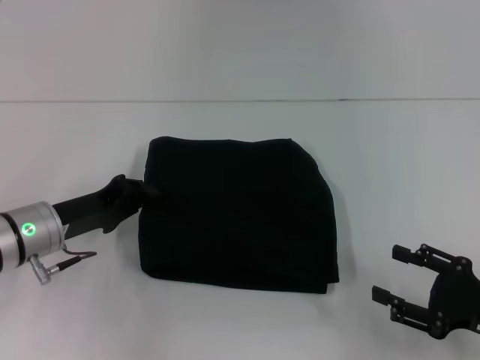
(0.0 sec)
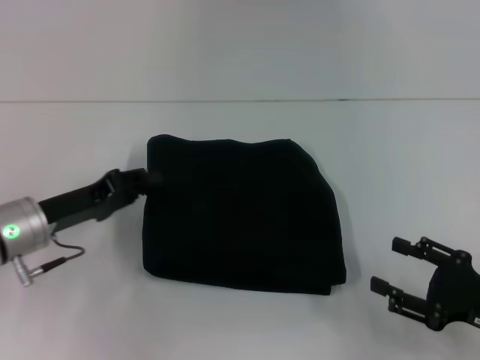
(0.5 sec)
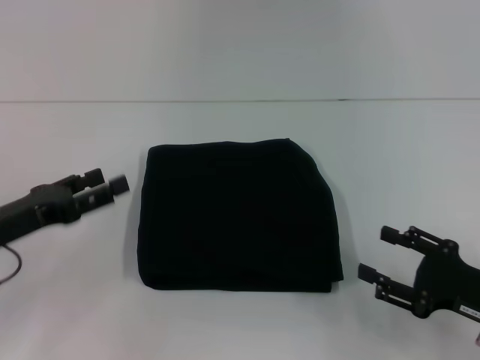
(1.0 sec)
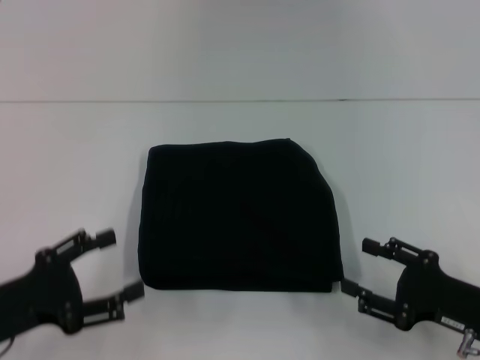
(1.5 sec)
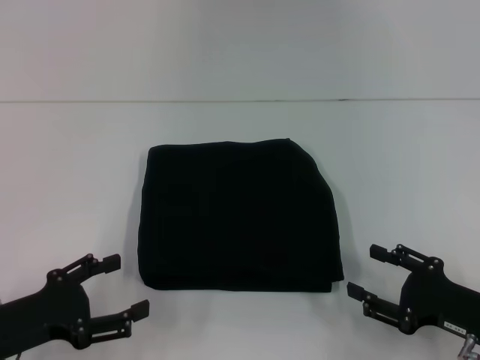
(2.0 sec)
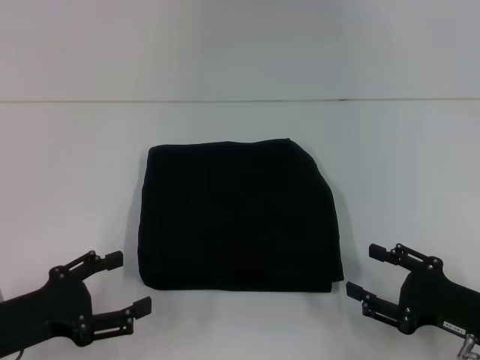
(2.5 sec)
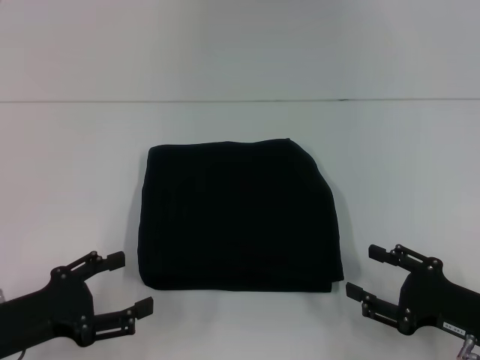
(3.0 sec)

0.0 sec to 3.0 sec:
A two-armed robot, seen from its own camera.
0.0 sec to 1.5 sec: The left gripper heads backward, covering roughly 10 cm, and opens up.
1.5 sec to 3.0 sec: The grippers make only small movements.

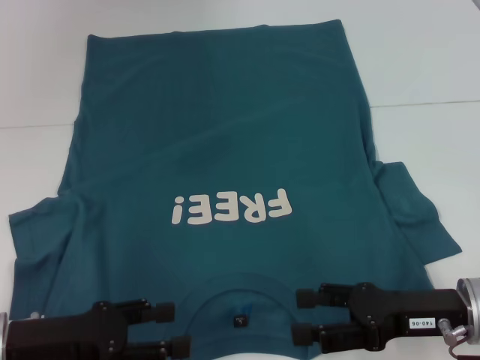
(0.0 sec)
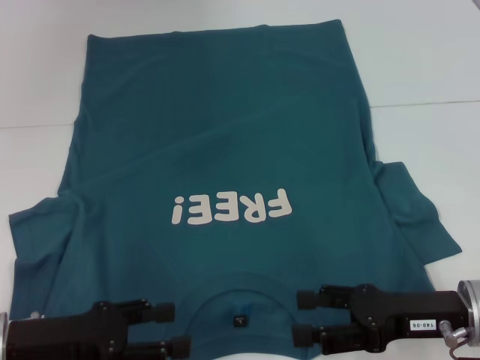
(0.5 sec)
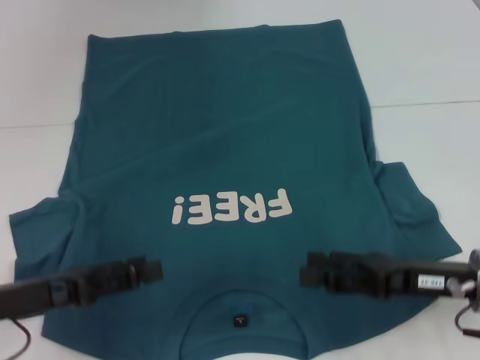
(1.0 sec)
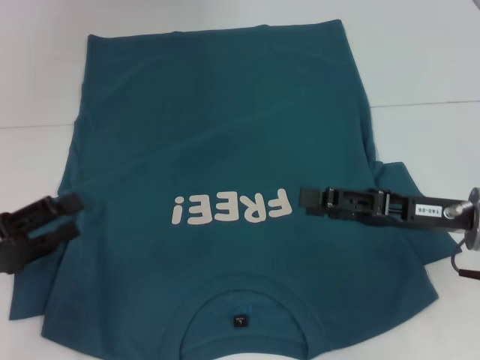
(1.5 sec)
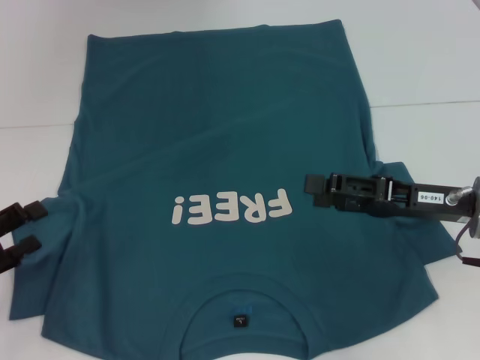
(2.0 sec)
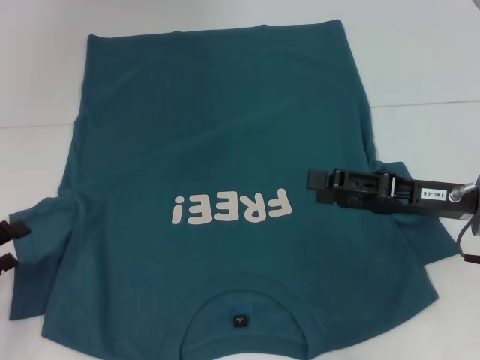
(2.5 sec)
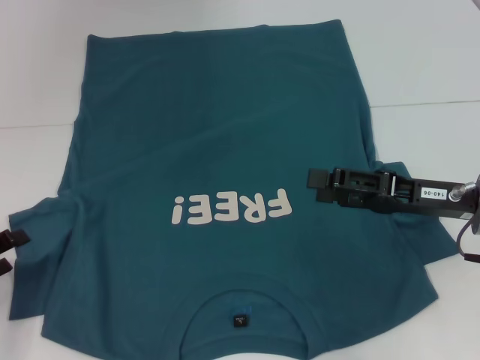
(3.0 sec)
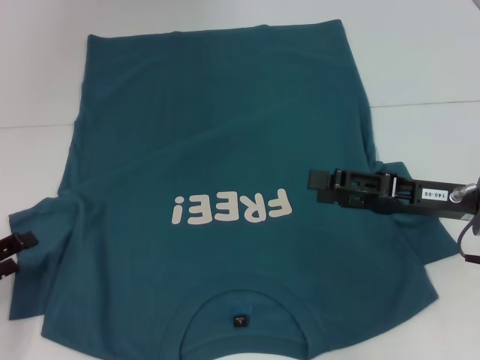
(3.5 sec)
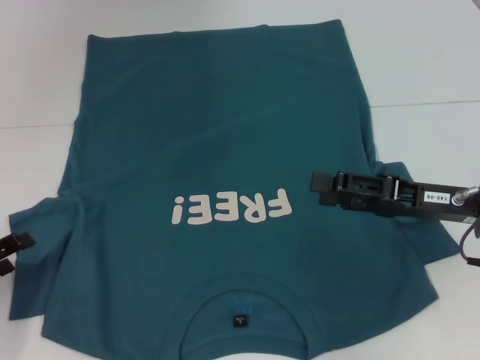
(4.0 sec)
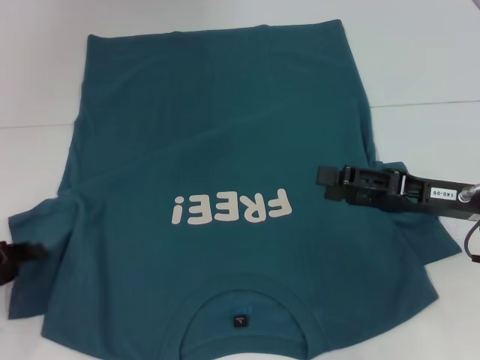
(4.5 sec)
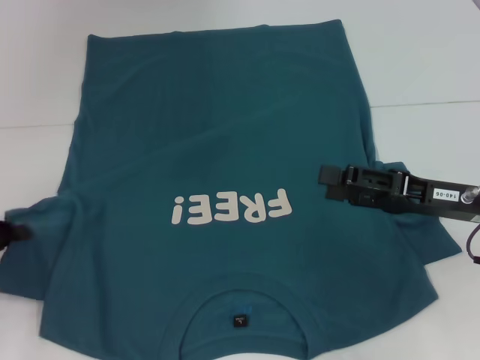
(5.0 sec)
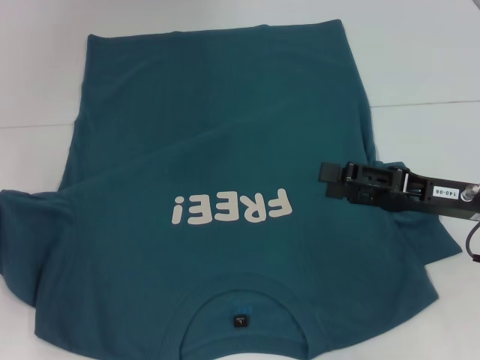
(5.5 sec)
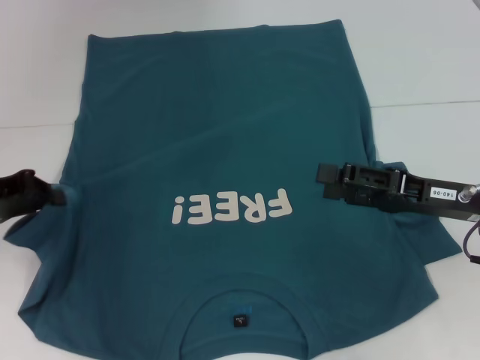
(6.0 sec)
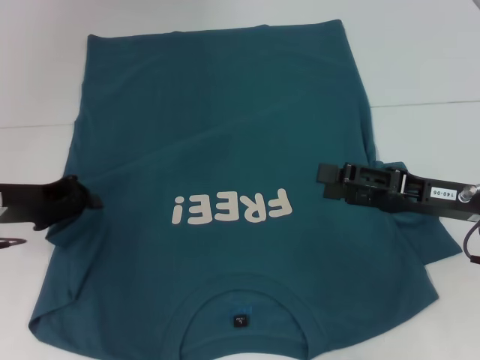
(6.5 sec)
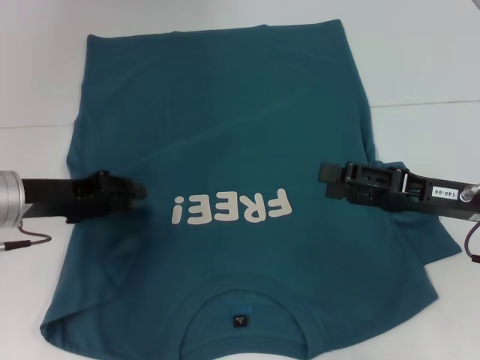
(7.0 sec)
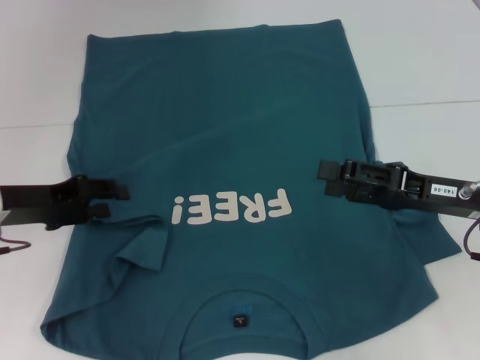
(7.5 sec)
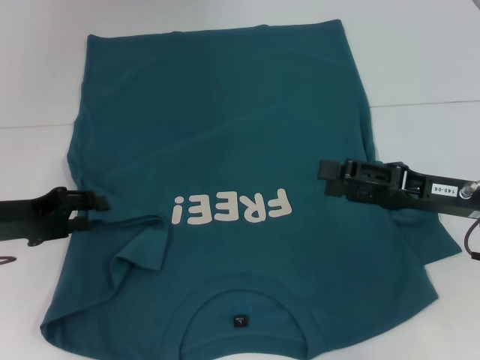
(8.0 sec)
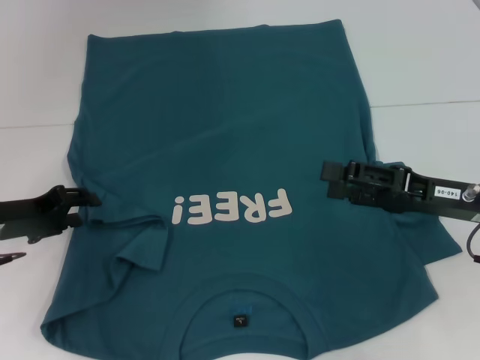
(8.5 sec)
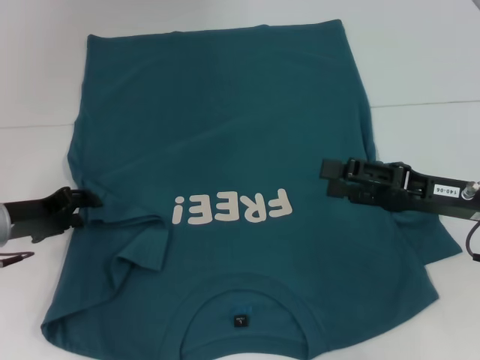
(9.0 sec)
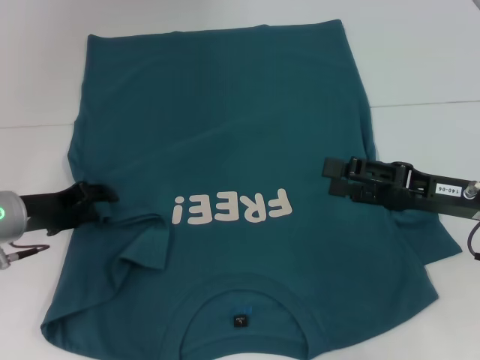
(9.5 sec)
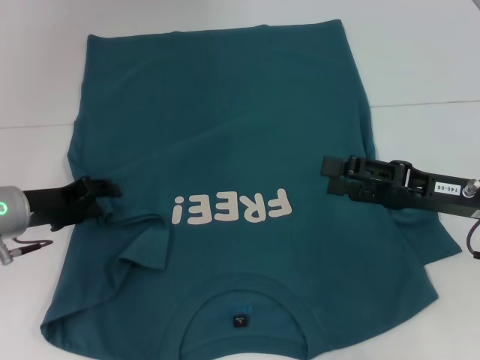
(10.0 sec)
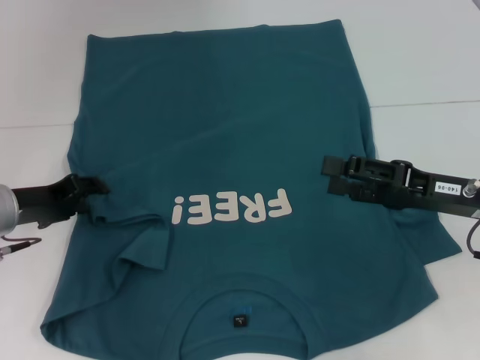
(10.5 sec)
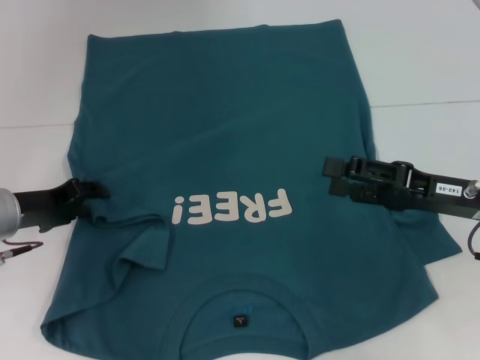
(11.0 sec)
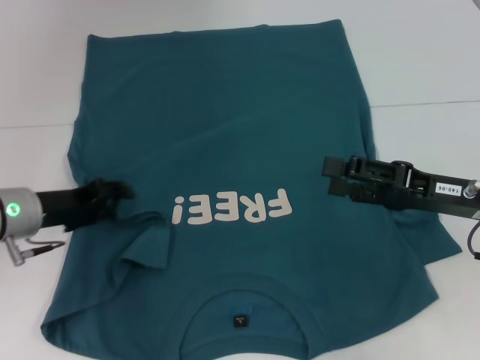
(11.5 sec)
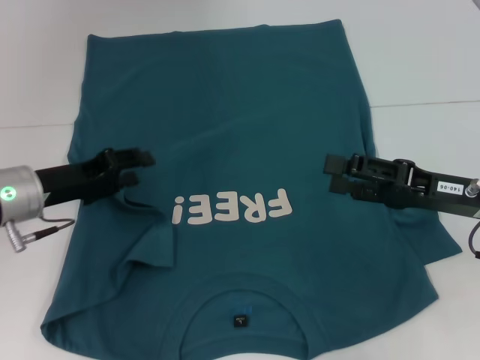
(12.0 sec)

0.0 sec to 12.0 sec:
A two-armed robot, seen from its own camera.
0.0 sec to 2.0 sec: The left gripper moves to the left, some 10 cm. The right gripper shifts approximately 5 cm forward.
2.0 sec to 4.0 sec: The grippers make only small movements.
4.0 sec to 6.0 sec: The left gripper is displaced upward and forward by roughly 15 cm, and closes.
6.0 sec to 8.0 sec: The left gripper changes place by some 5 cm, and opens.
8.0 sec to 10.0 sec: The grippers move only a little.
10.0 sec to 12.0 sec: The grippers move only a little.

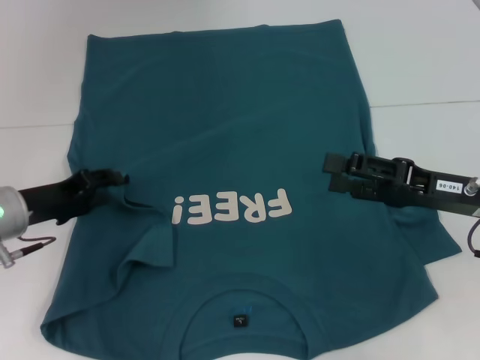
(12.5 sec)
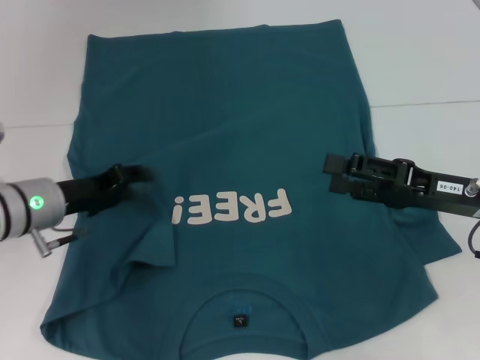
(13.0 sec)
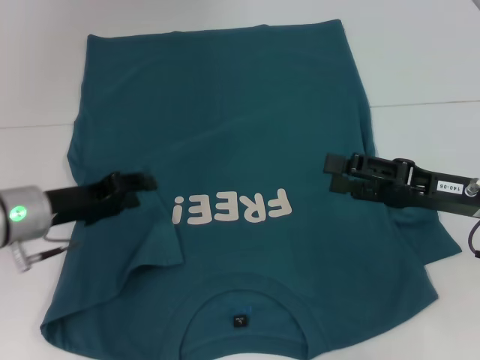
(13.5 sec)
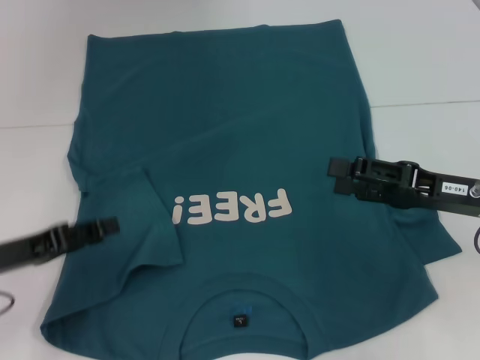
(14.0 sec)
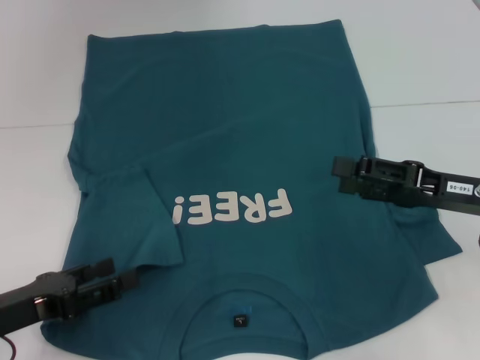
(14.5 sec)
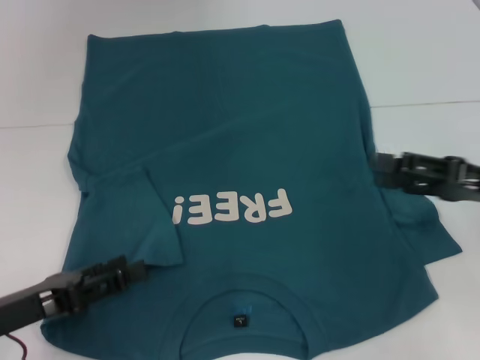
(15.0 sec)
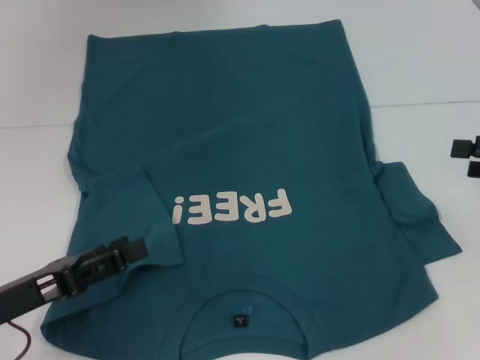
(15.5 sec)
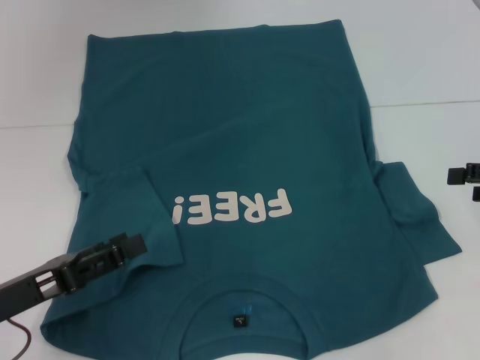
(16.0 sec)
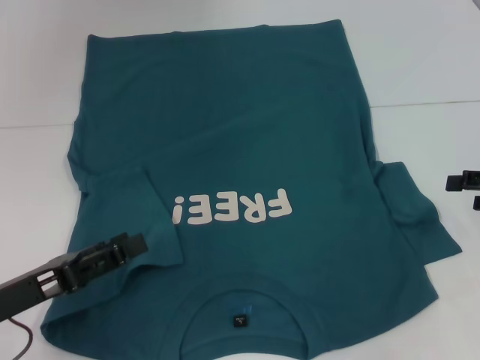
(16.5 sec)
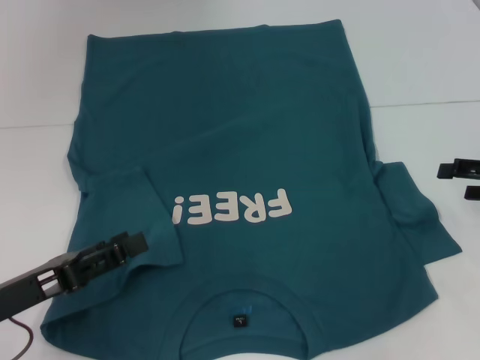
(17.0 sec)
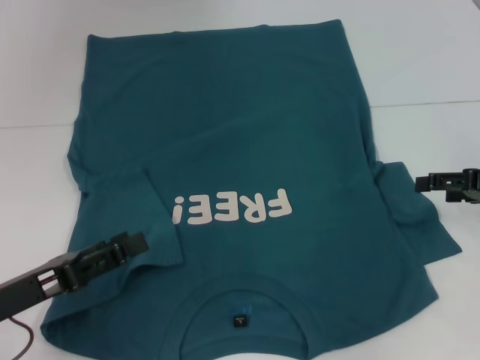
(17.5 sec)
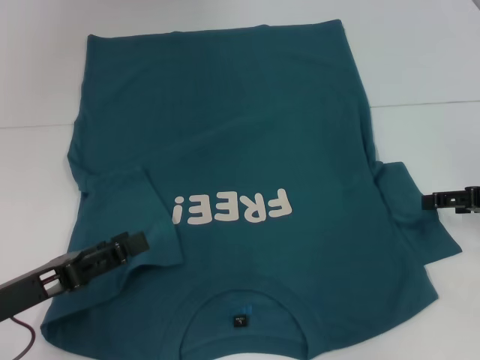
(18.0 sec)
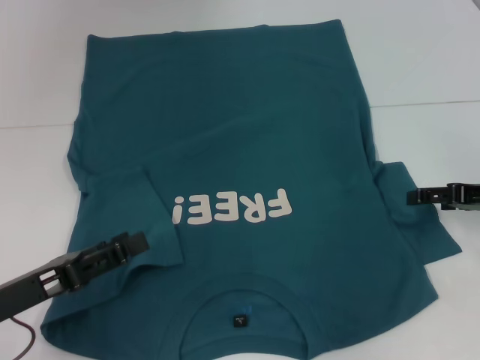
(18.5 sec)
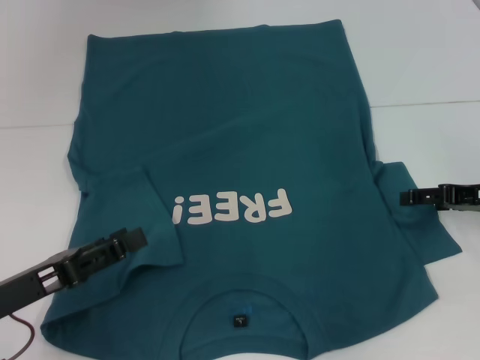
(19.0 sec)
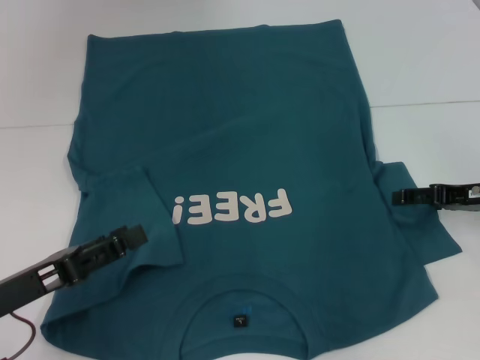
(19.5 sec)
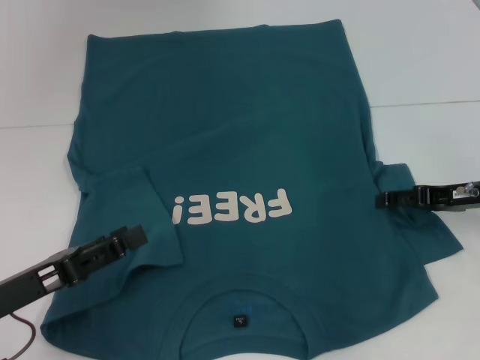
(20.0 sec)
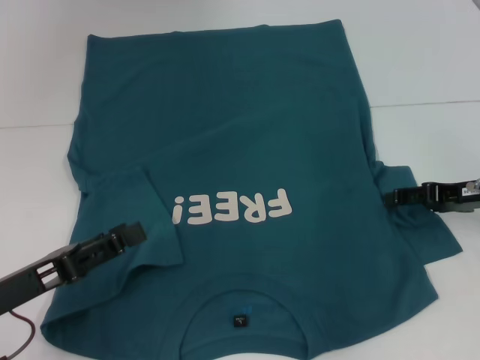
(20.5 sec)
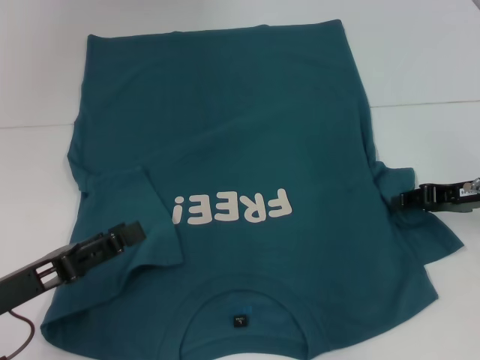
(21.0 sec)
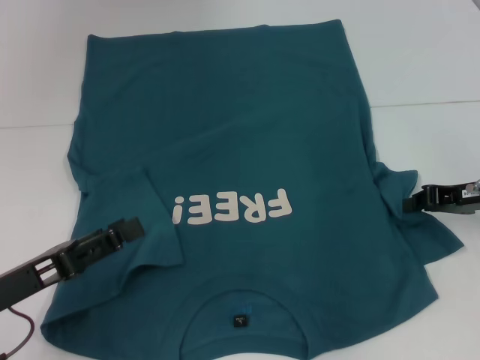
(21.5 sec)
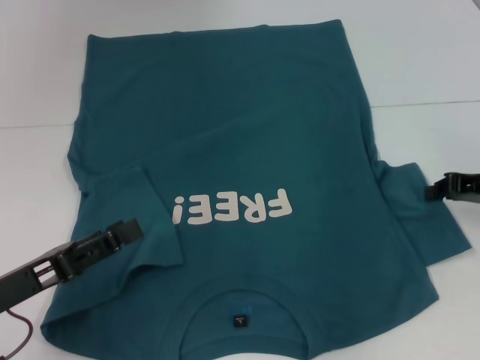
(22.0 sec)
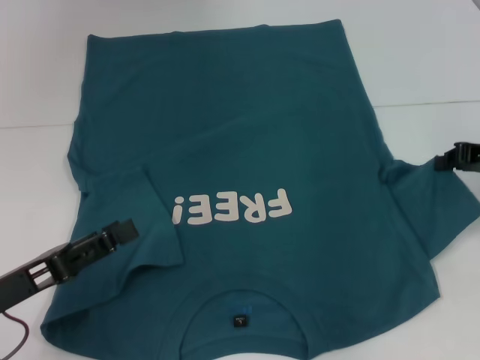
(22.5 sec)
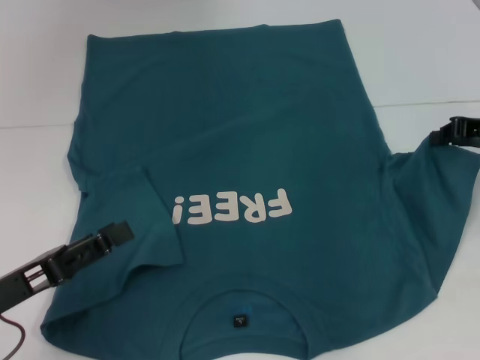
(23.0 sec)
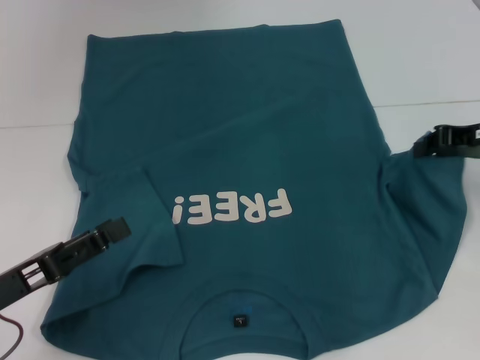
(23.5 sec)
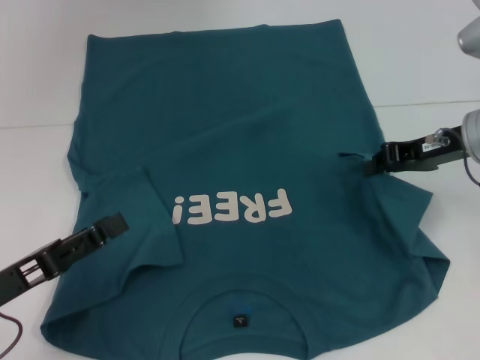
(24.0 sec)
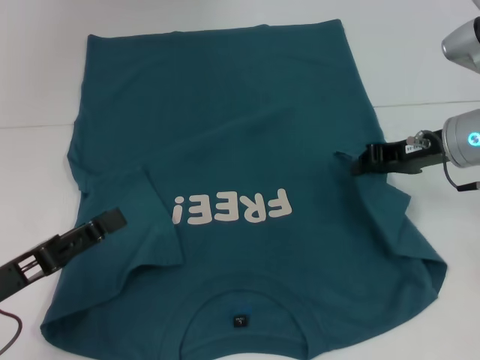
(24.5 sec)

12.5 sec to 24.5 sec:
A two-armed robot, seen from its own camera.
12.5 sec to 14.5 sec: The left gripper moves backward, roughly 15 cm.
14.5 sec to 16.5 sec: The right gripper shifts some 10 cm to the right.
16.5 sec to 18.5 sec: The right gripper moves about 5 cm.
18.5 sec to 20.5 sec: There are only small adjustments of the grippers.
20.5 sec to 22.5 sec: The right gripper closes.
22.5 sec to 24.5 sec: The right gripper shifts roughly 10 cm to the left.
